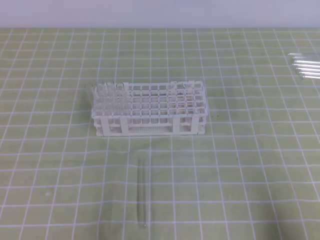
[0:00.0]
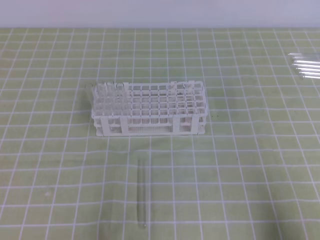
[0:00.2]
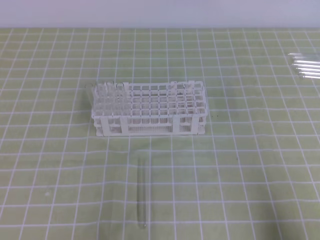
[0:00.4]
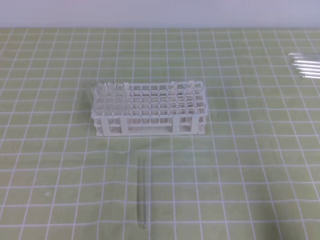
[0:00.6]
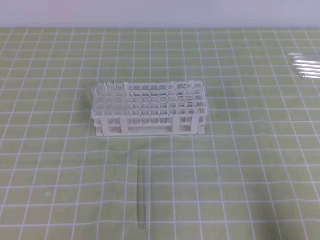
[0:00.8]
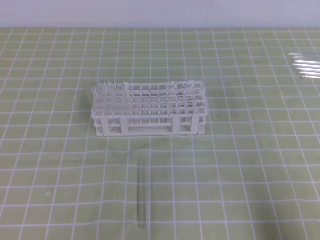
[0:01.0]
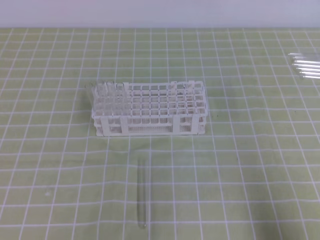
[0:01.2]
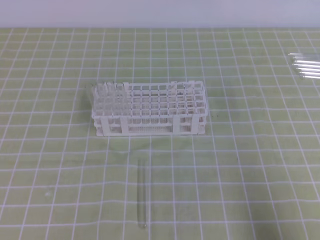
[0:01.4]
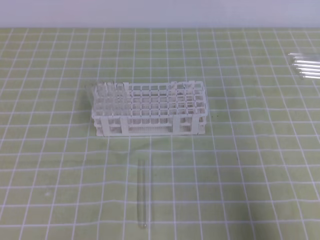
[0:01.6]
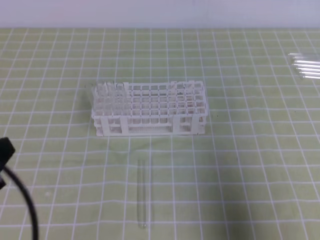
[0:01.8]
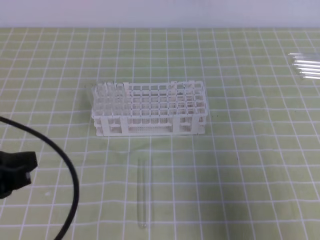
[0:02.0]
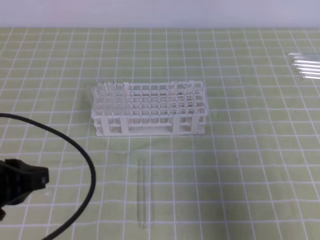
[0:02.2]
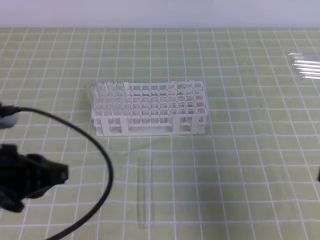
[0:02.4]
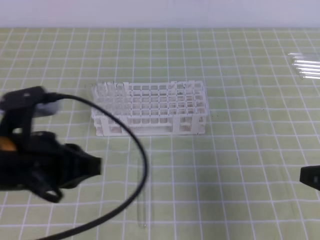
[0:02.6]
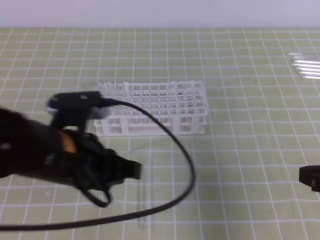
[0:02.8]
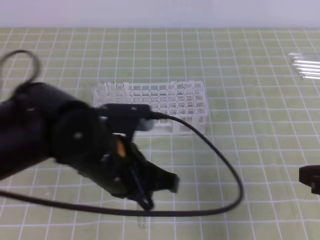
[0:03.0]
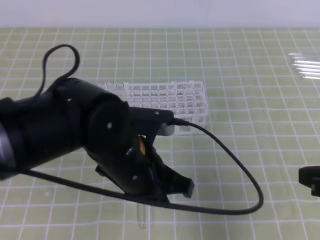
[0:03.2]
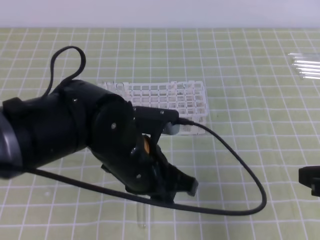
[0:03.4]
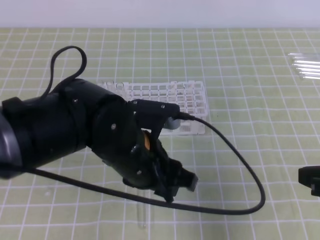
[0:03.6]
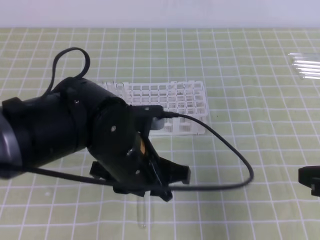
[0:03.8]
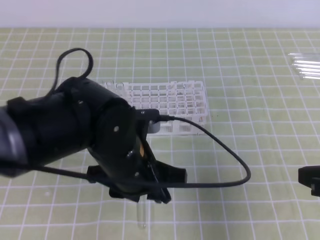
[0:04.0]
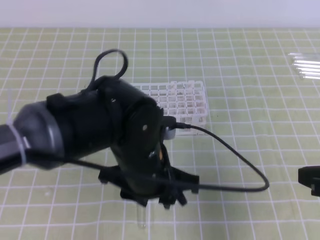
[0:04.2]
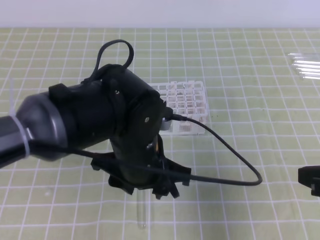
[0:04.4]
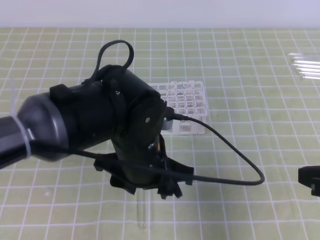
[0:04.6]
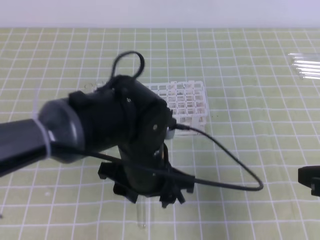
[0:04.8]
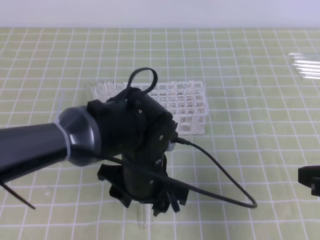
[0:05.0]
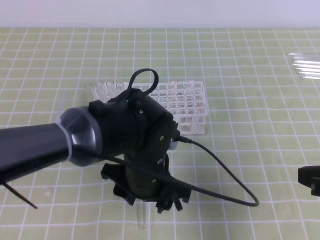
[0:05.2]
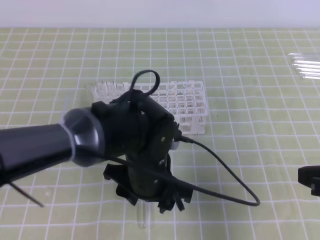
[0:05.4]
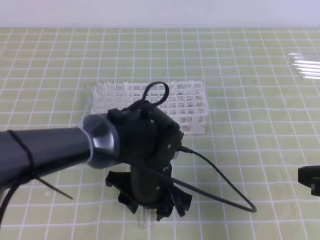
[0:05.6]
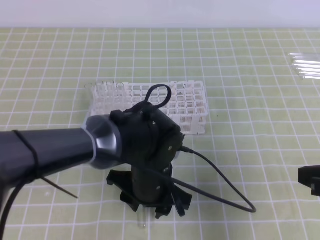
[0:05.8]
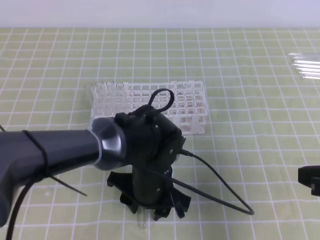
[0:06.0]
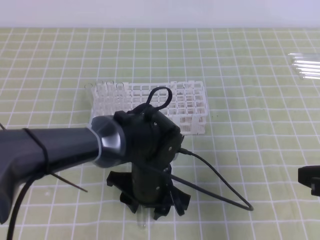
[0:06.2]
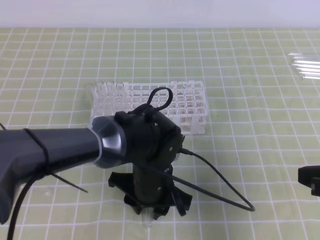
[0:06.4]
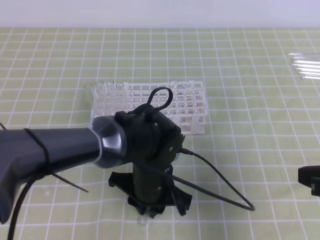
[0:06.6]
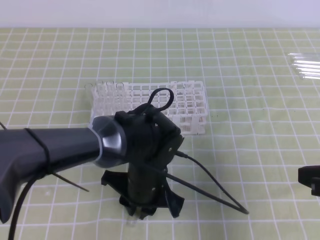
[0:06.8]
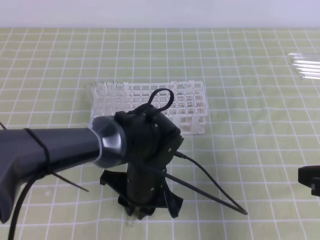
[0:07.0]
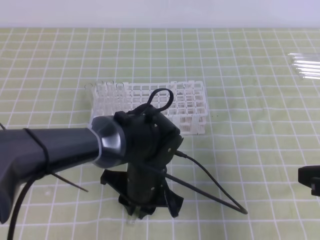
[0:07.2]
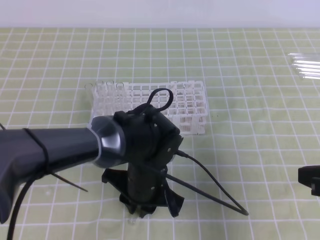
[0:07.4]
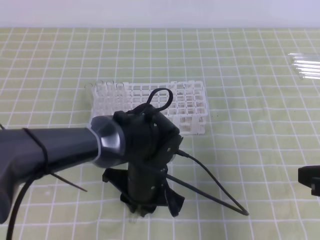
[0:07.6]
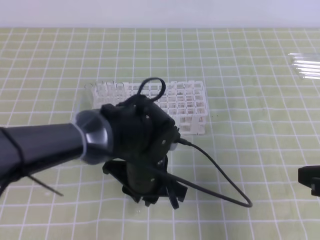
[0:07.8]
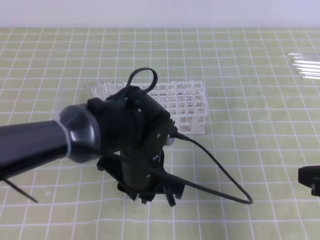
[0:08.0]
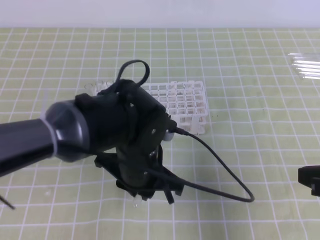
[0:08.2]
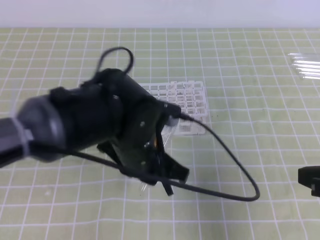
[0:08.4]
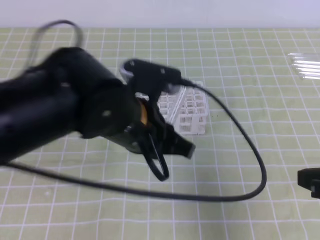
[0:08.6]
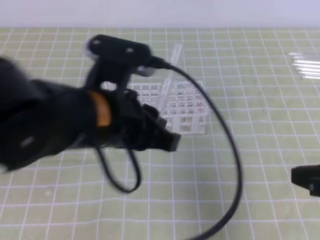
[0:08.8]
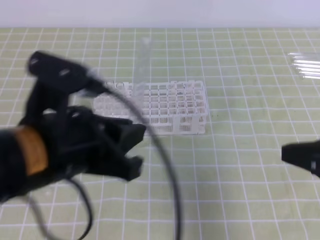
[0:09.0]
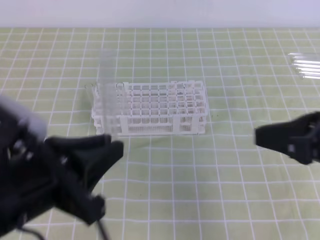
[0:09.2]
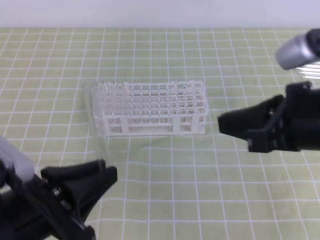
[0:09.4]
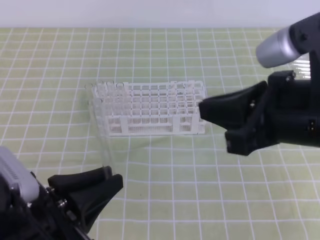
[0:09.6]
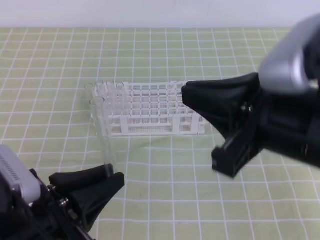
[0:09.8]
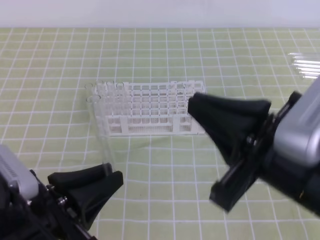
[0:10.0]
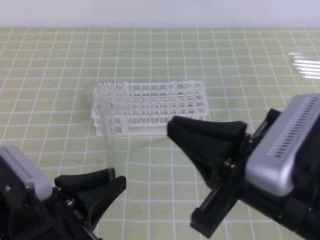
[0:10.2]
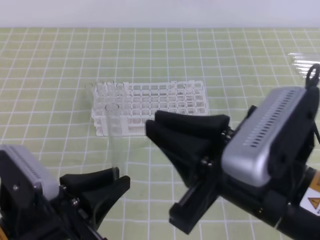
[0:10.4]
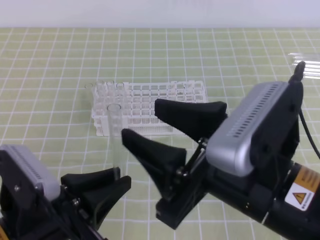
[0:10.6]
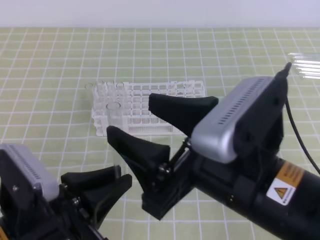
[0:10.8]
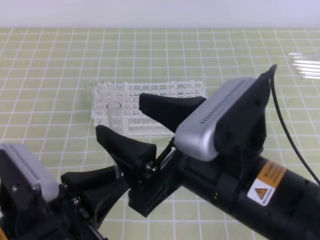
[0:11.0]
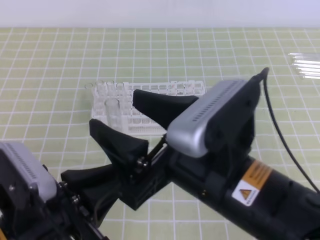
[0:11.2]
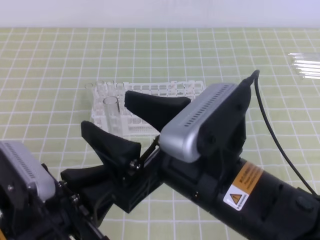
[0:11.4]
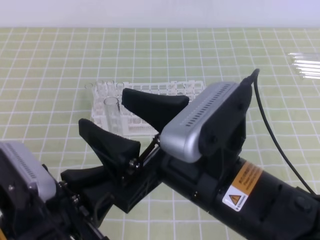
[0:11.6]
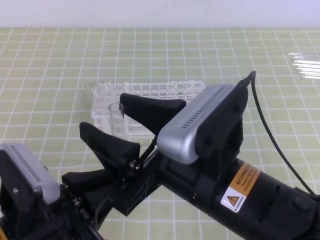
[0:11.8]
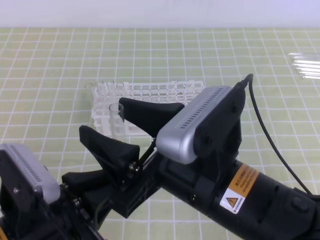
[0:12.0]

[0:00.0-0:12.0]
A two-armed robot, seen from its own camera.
0:00.0 to 0:01.6: The left gripper shifts roughly 10 cm upward; the right gripper moves upward, about 5 cm.
0:01.6 to 0:03.0: The right gripper is displaced forward by about 10 cm, while the left gripper heads to the right and forward, covering about 20 cm.
0:03.0 to 0:04.4: The left gripper moves to the right, roughly 5 cm, and opens its fingers.
0:04.4 to 0:06.0: The left gripper moves downward, some 10 cm.
0:06.0 to 0:07.6: The left gripper closes its fingers.
0:07.6 to 0:09.0: The left gripper is displaced upward, to the left and backward by some 20 cm.
0:09.0 to 0:10.4: The left gripper travels downward by about 10 cm; the right gripper heads to the left, covering about 15 cm.
0:10.4 to 0:12.0: The right gripper goes about 5 cm to the left, and opens up.

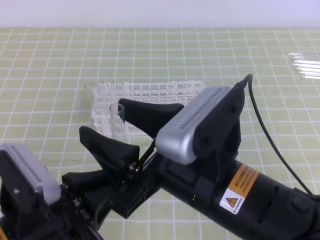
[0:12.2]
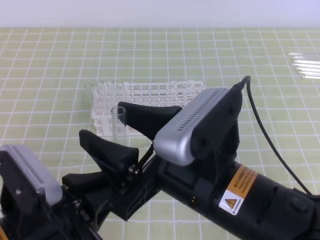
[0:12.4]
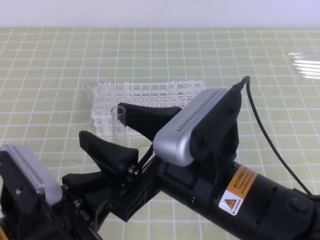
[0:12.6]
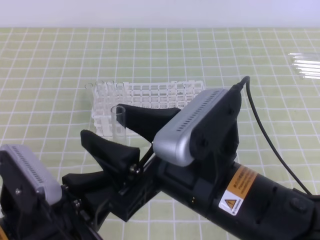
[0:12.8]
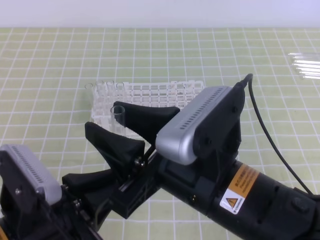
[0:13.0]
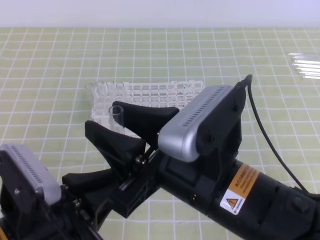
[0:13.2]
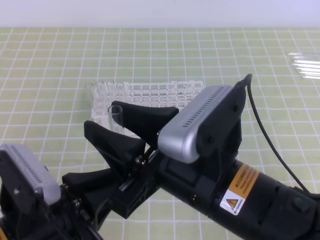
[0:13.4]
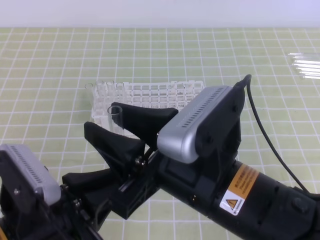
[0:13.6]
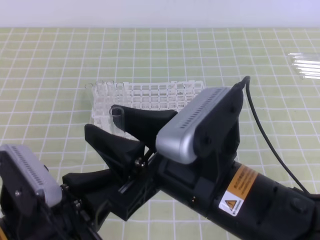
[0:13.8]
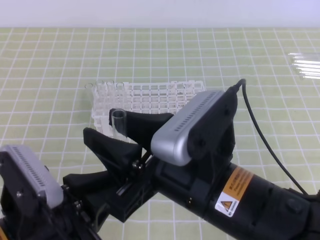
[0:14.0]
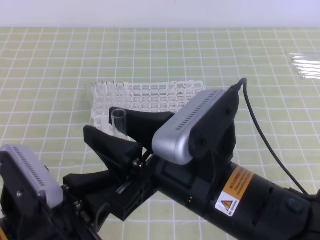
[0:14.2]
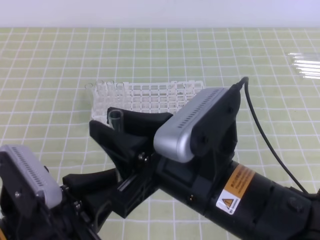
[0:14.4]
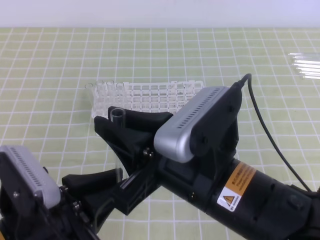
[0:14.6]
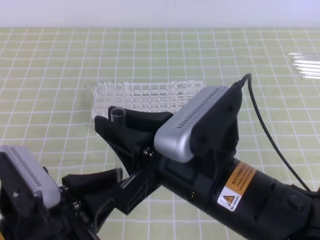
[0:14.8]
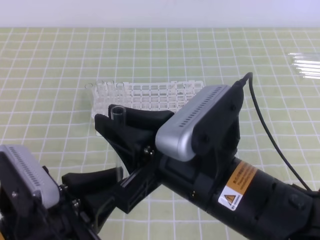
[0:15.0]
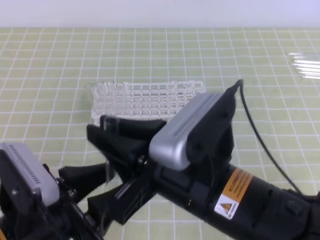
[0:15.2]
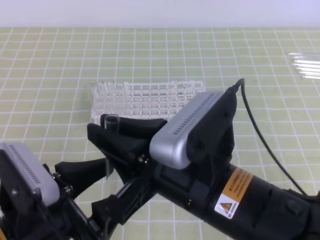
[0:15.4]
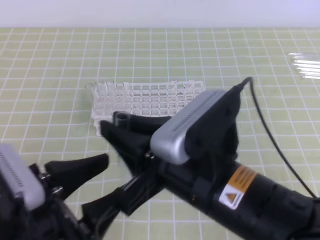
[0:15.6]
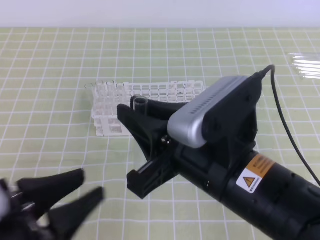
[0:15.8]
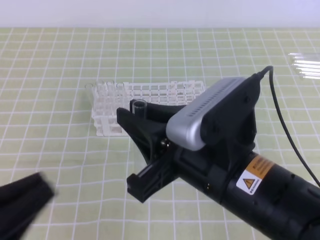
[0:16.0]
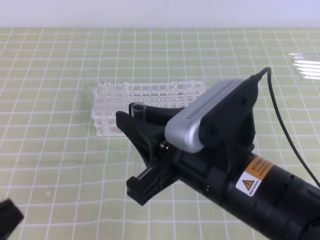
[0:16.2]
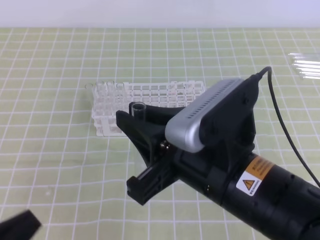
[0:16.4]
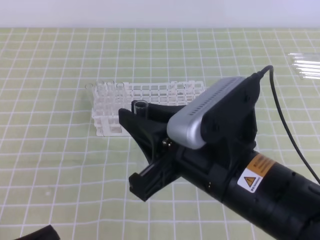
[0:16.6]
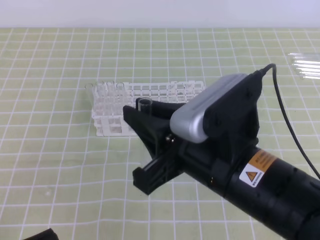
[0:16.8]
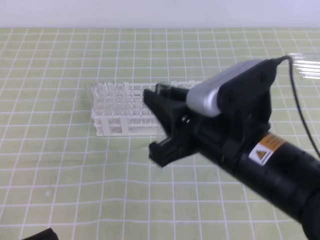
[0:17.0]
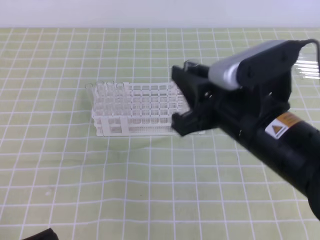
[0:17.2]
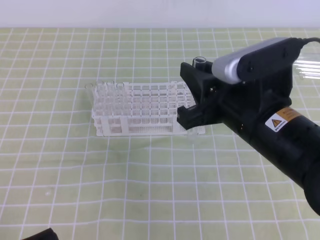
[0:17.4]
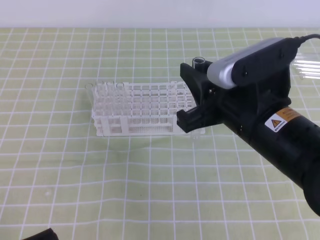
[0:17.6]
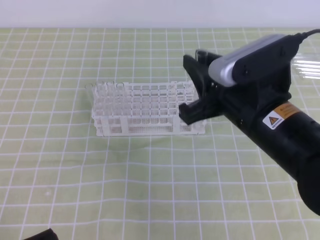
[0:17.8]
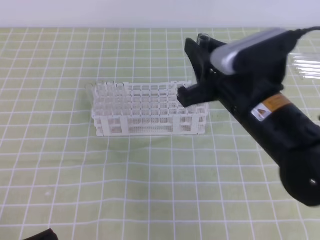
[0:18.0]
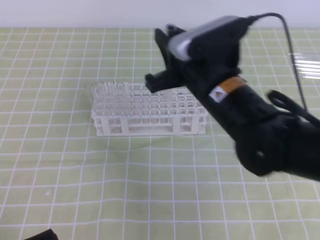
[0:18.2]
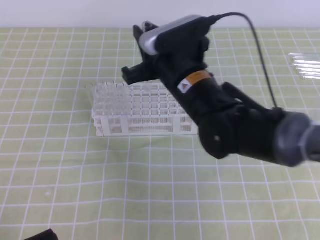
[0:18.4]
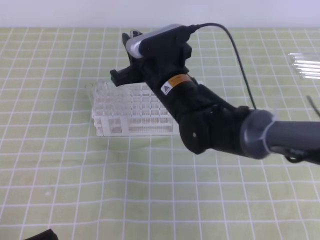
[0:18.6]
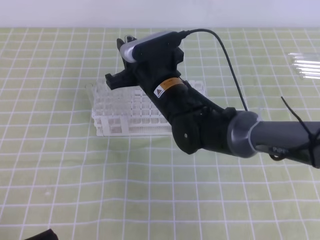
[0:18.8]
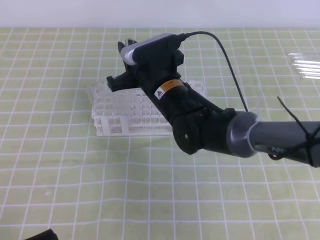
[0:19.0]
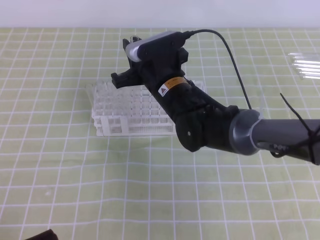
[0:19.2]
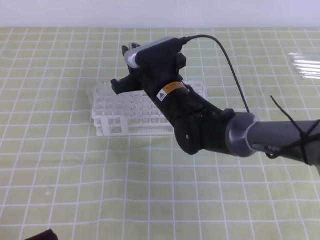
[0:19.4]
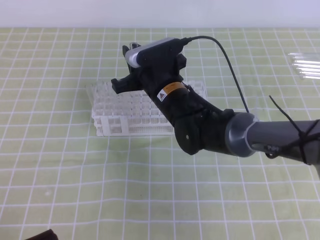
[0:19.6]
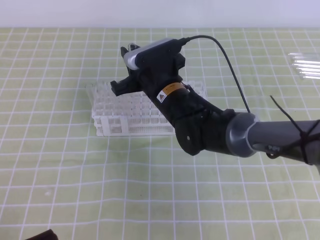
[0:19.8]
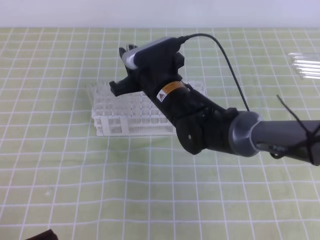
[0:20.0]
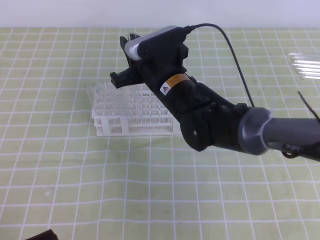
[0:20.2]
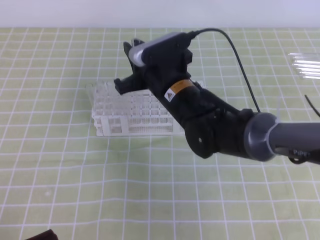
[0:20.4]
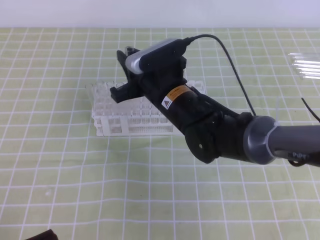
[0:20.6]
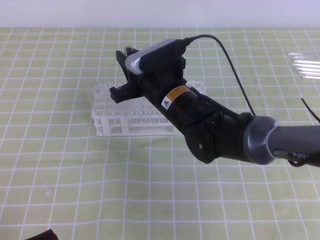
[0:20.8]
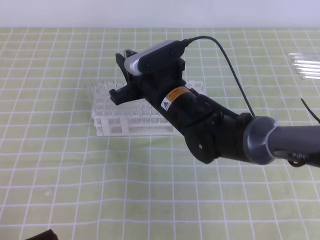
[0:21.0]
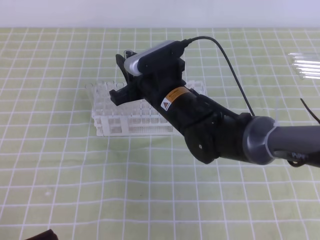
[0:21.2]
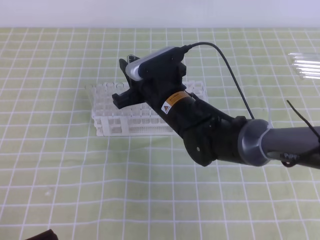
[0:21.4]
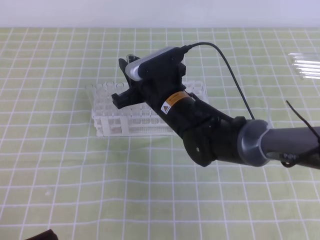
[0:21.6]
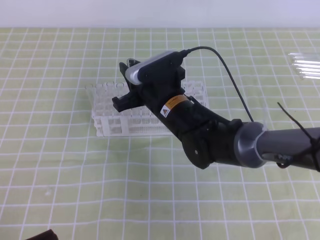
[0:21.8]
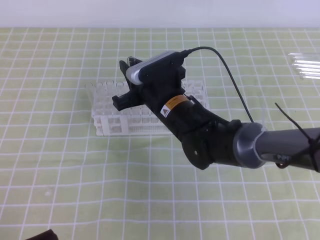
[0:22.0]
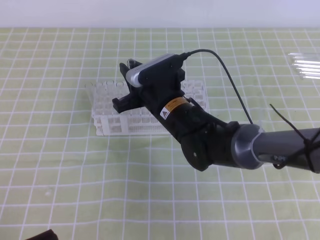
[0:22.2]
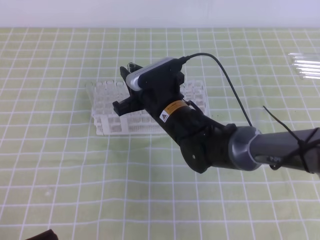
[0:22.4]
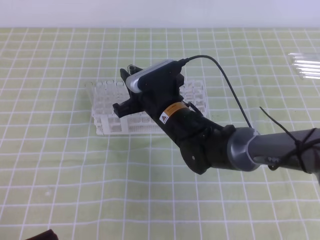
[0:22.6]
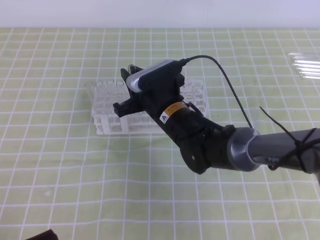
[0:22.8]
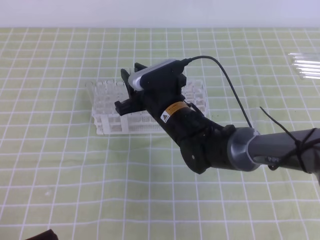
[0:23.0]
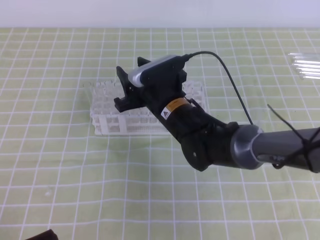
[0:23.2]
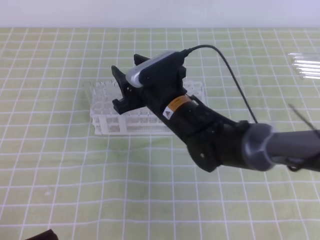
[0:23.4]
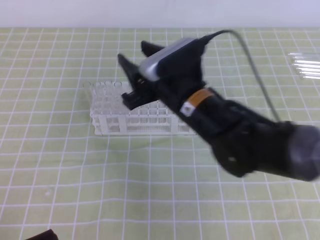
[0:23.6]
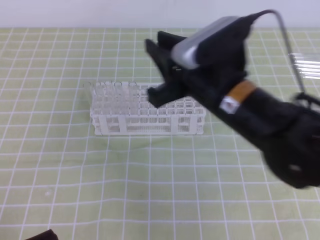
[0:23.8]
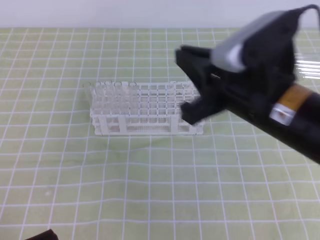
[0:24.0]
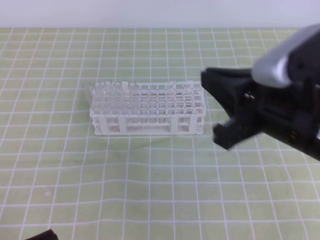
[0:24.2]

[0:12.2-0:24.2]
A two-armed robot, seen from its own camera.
0:12.2 to 0:13.8: The two grippers keep their place.
0:13.8 to 0:15.2: The left gripper opens up. Meanwhile the right gripper closes its fingers.
0:15.2 to 0:16.6: The left gripper is displaced to the left and backward by about 10 cm, and closes up.
0:16.6 to 0:18.2: The right gripper travels forward by roughly 15 cm.
0:18.2 to 0:19.8: The right gripper travels forward, downward and to the left by about 15 cm.
0:19.8 to 0:22.6: There are only small adjustments of the grippers.
0:22.6 to 0:24.2: The right gripper shifts about 25 cm backward, upward and to the right, and opens and closes again.
